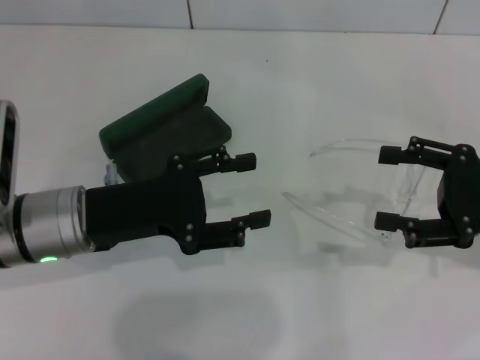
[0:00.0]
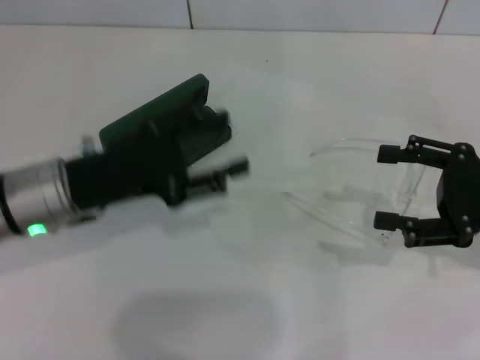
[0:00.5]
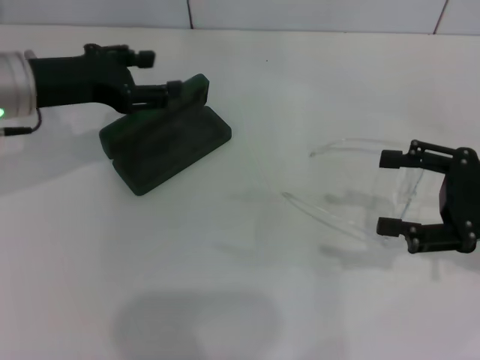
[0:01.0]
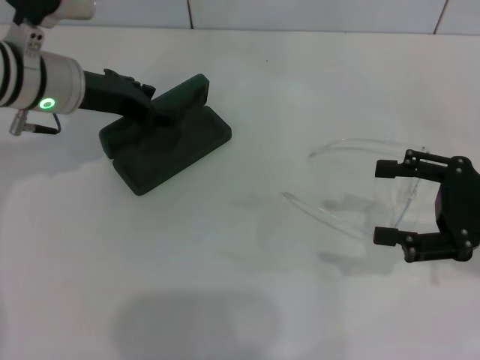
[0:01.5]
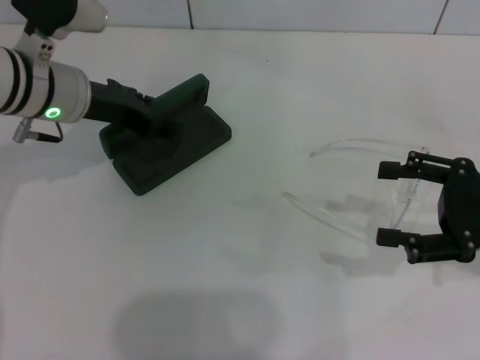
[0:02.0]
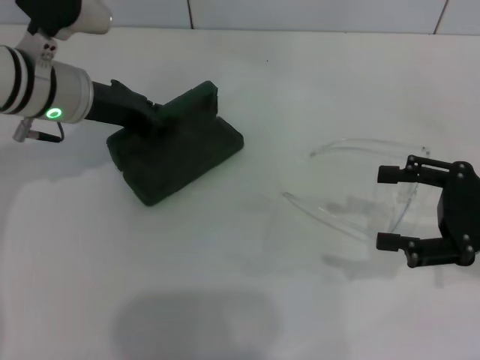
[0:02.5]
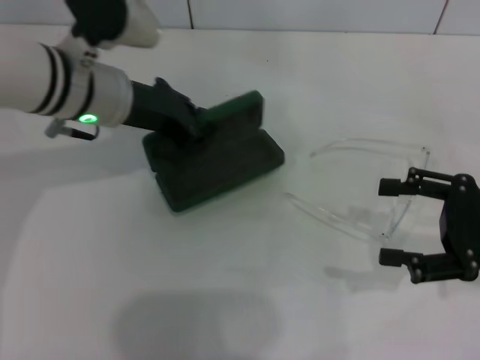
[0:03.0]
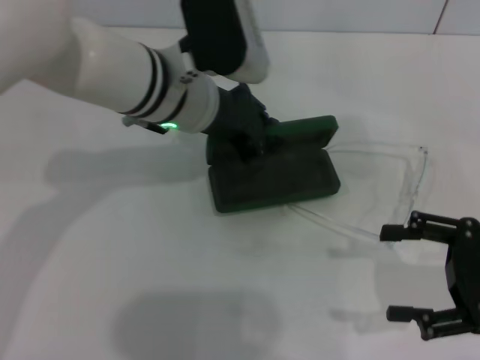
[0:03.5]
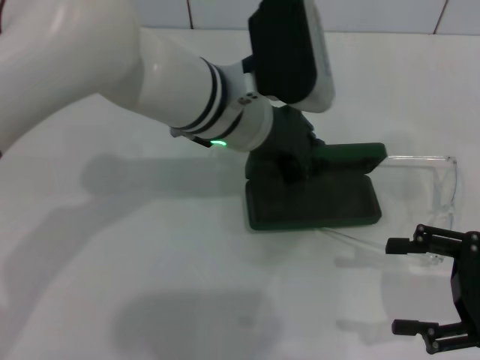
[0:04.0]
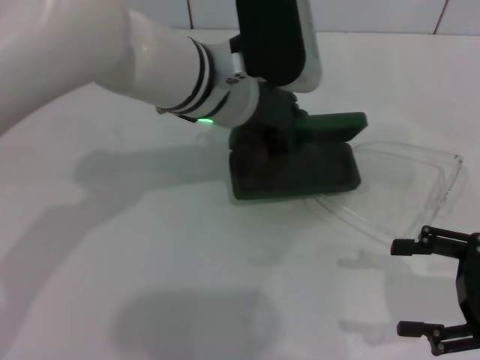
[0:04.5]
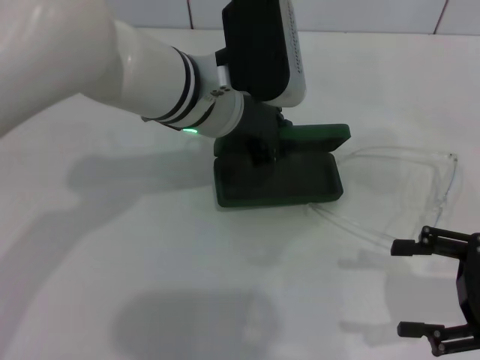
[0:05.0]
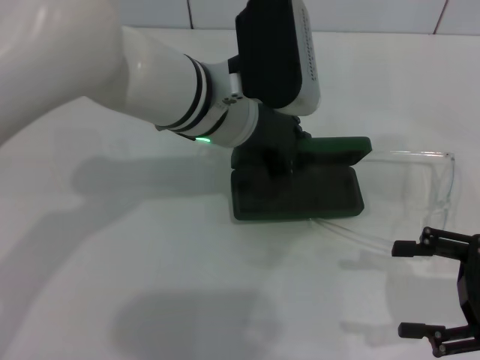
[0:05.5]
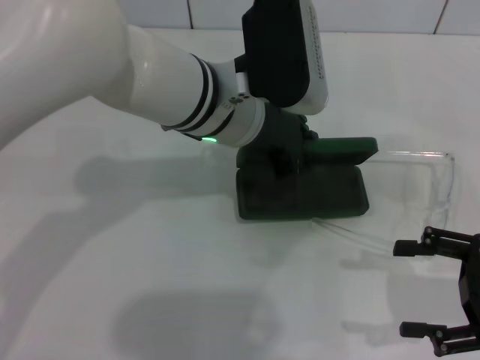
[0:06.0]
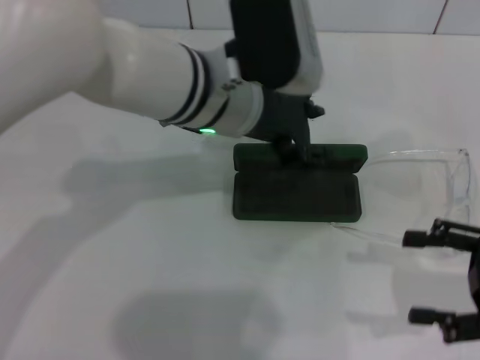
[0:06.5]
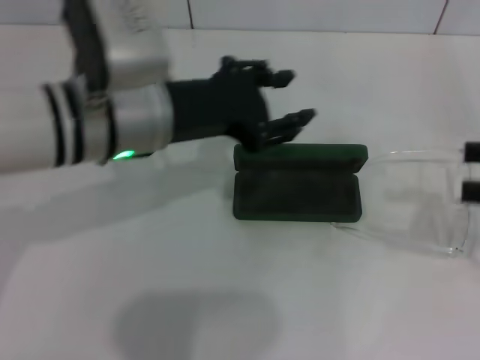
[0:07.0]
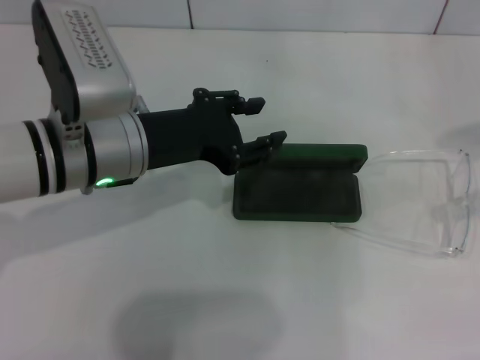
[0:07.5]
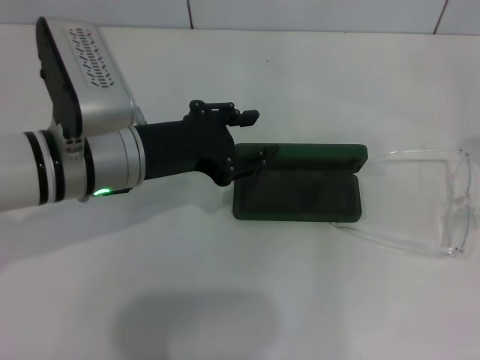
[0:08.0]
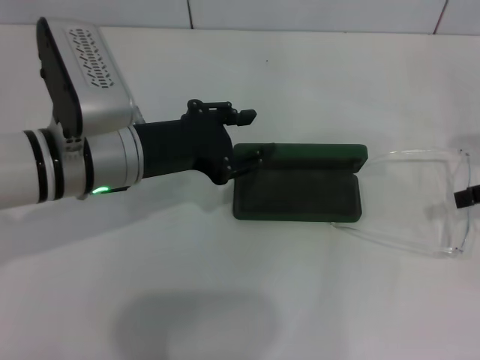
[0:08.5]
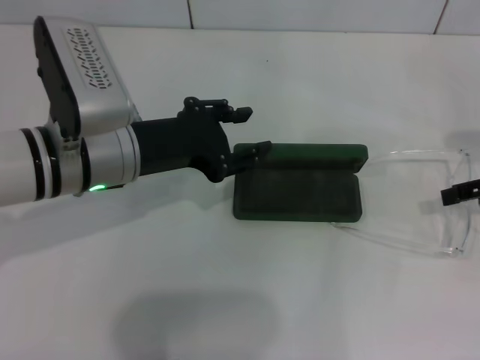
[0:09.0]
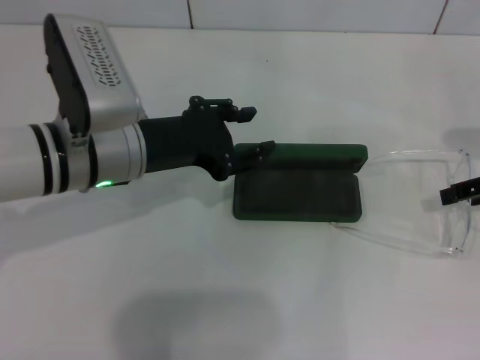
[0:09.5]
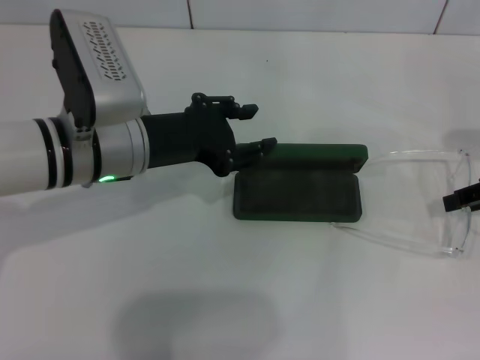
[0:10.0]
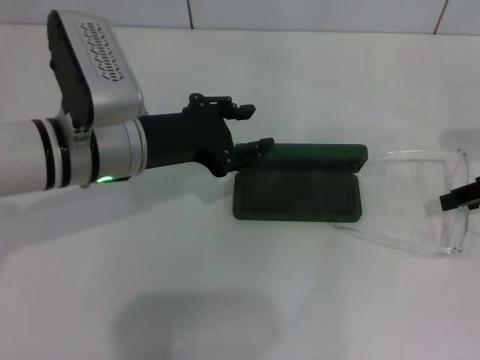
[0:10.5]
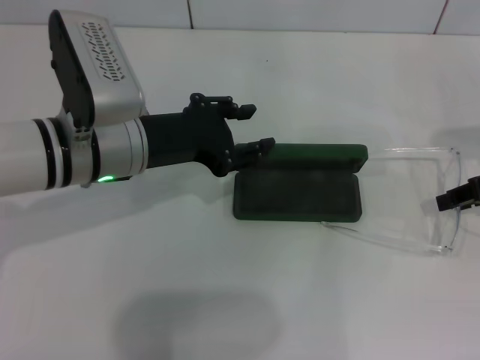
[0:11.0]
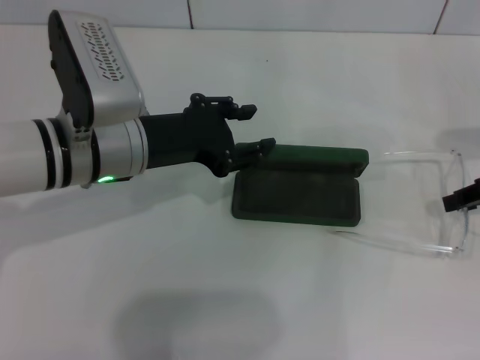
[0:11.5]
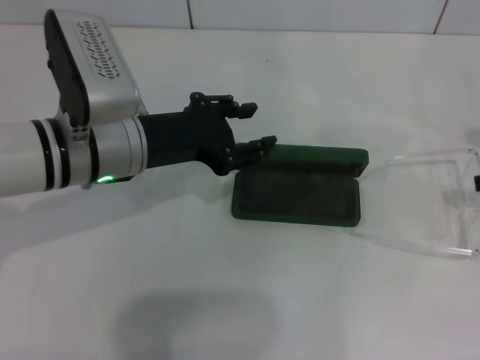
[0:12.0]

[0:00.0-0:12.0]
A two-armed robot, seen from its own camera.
Step, 0:00.0 to 0:02.5: Grab the glasses case with your left hand.
Step, 0:03.0 to 0:06.0: Place the glasses case in the center of the table with your left hand.
0:00.0 to 0:02.0: The left gripper heads forward, covering some 10 cm.
0:02.0 to 0:04.0: The left gripper shifts about 15 cm to the right, and closes its fingers, while the right gripper changes place by about 5 cm.
0:04.0 to 0:06.0: There are only small adjustments of the grippers.
0:06.0 to 0:08.0: The left gripper goes about 10 cm to the left, and opens its fingers. The right gripper travels upward and forward by about 15 cm.
0:08.0 to 0:10.0: The right gripper shifts roughly 5 cm downward, and closes up.
0:10.0 to 0:12.0: The grippers make only small movements.

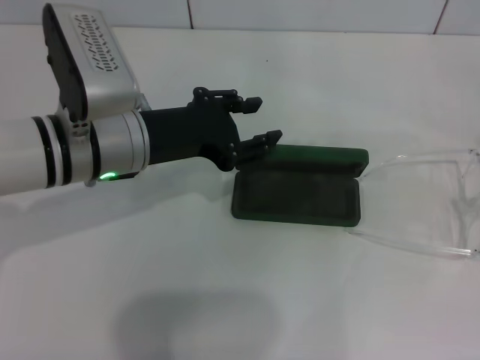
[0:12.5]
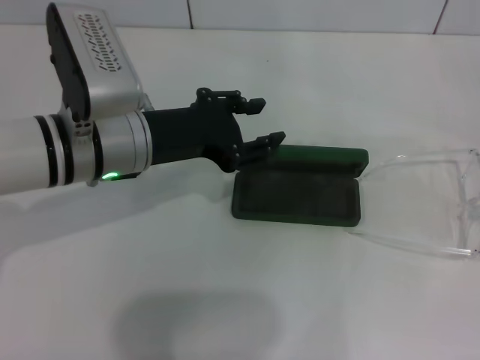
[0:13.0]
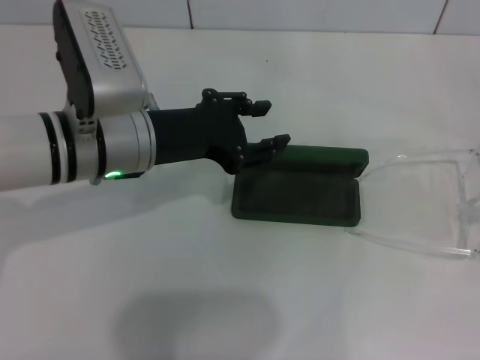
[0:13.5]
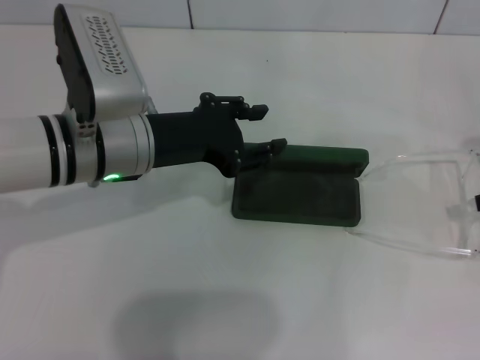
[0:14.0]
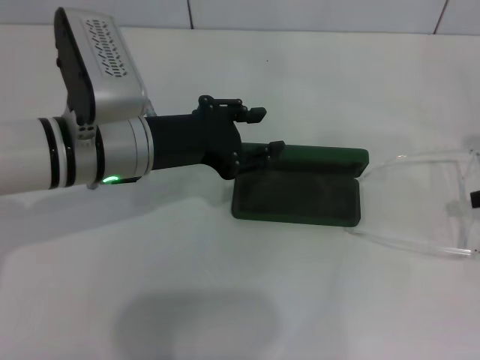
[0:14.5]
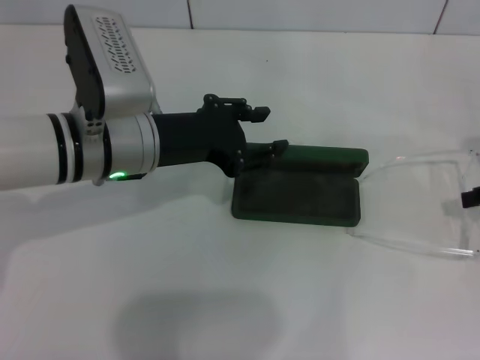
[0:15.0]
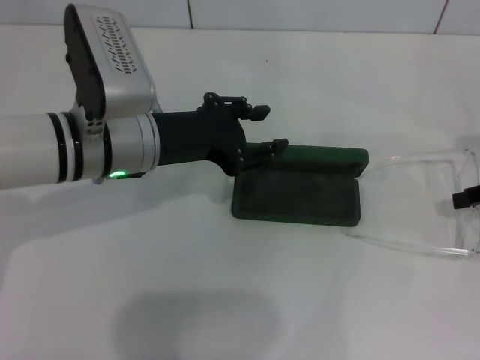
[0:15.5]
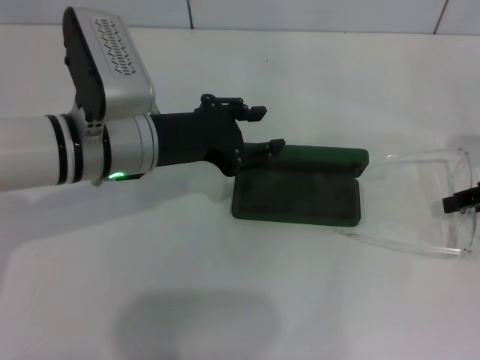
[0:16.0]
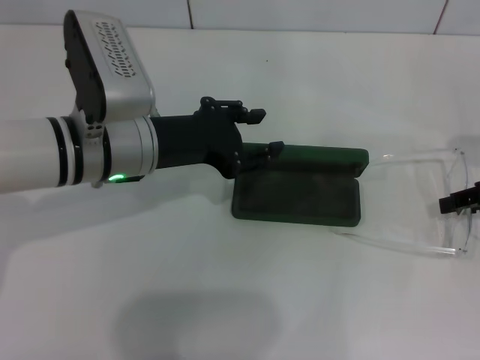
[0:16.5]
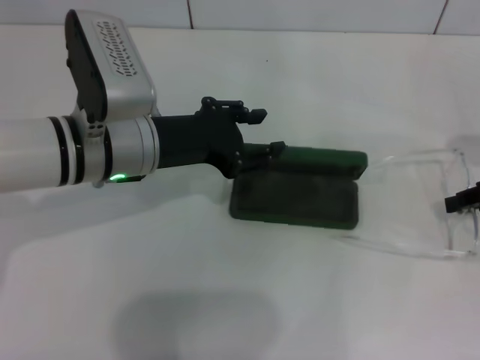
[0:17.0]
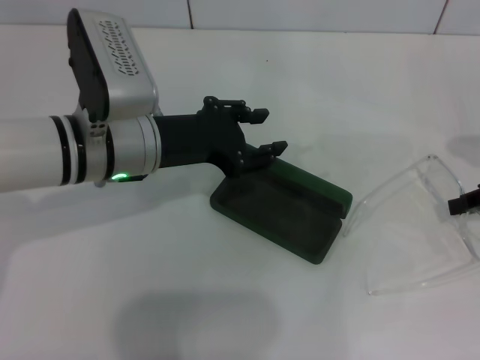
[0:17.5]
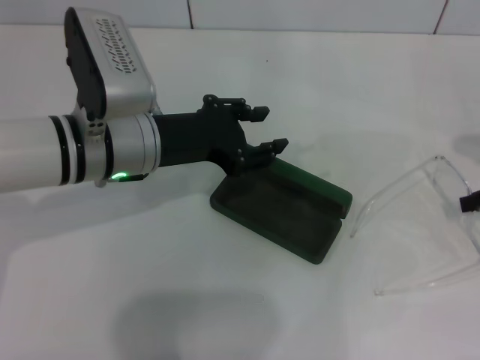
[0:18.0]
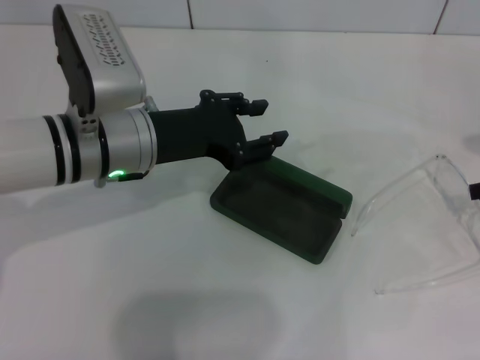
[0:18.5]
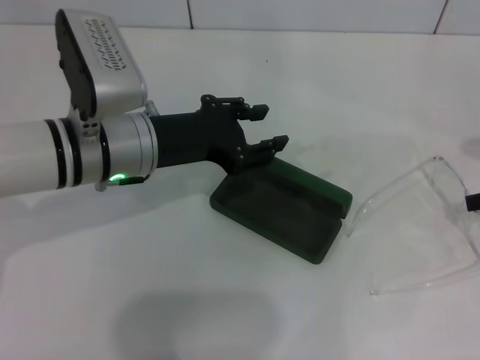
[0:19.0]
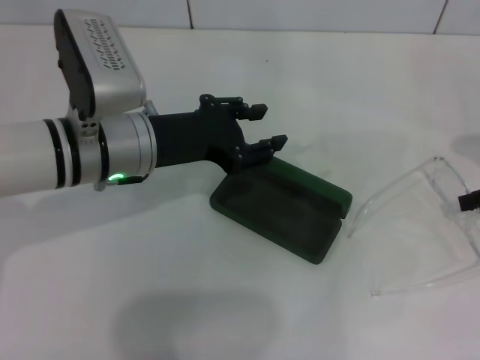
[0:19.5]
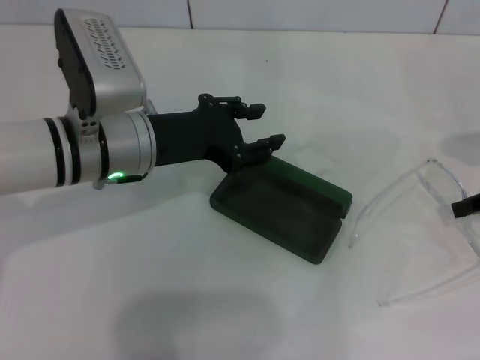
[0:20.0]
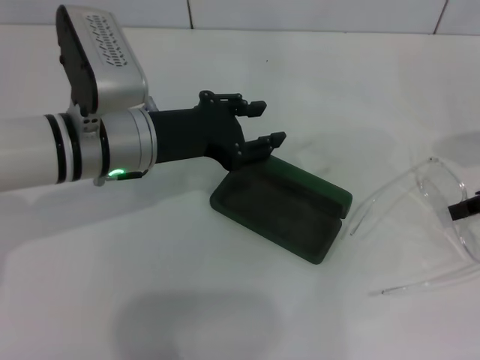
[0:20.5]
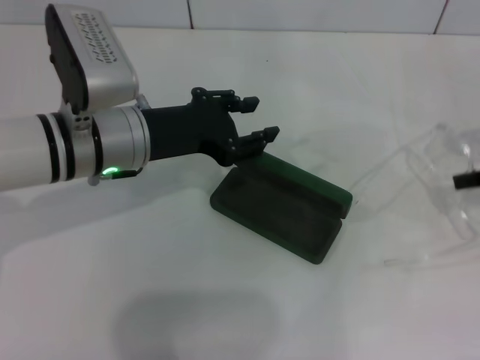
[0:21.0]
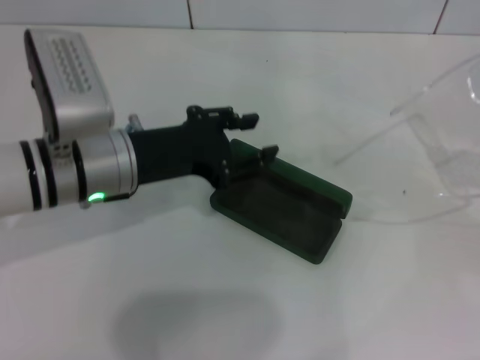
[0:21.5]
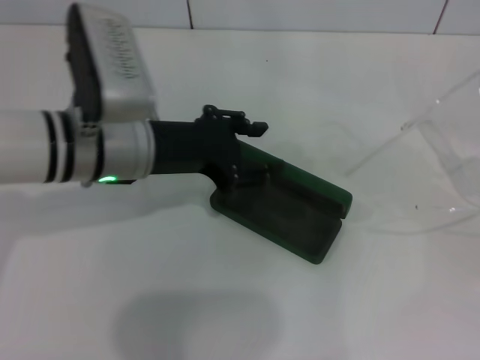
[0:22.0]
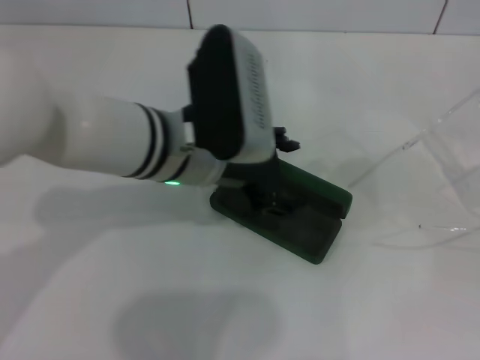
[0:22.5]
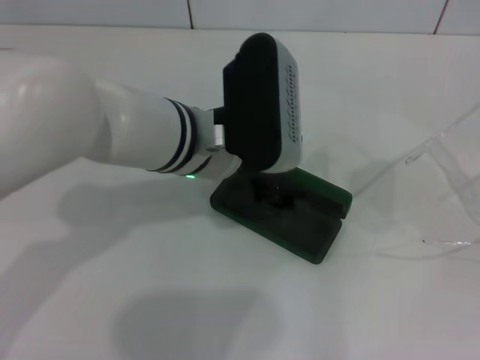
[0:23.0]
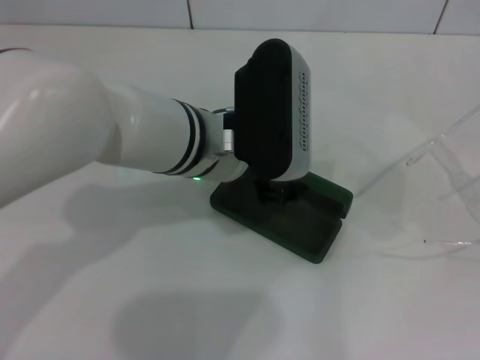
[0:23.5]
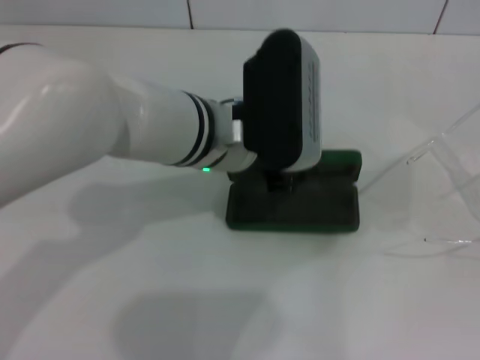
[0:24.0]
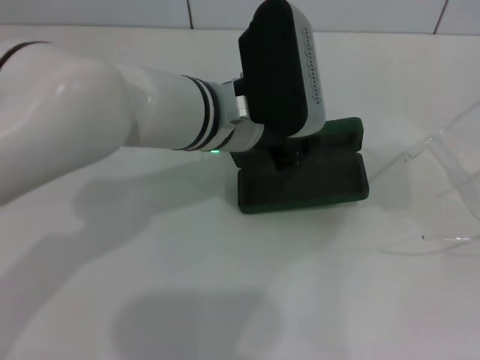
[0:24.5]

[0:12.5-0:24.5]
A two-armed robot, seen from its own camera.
Step, 0:12.5 to 0:20.5: Grab the eyeglass frame with your right hand.
0:12.5 to 0:20.5: There are only small adjustments of the grippers.
0:20.5 to 0:22.5: The two grippers go some 5 cm to the right. The left gripper opens.
0:22.5 to 0:24.5: The left gripper closes up.

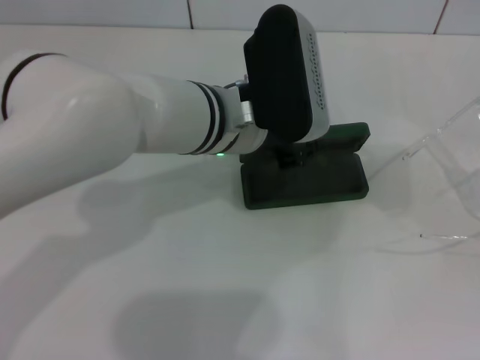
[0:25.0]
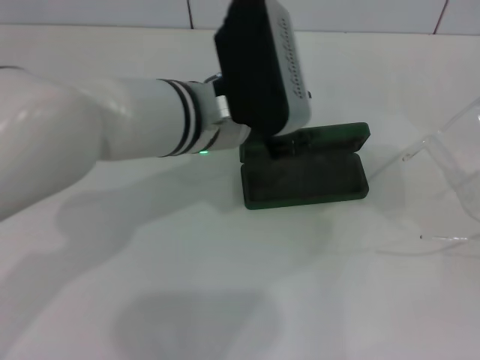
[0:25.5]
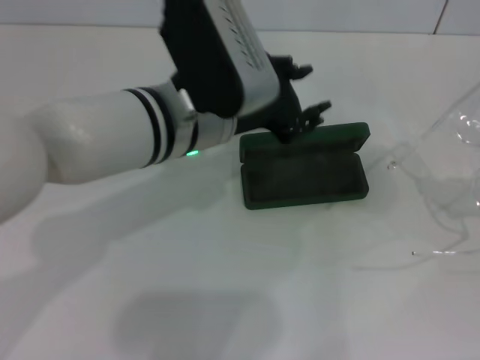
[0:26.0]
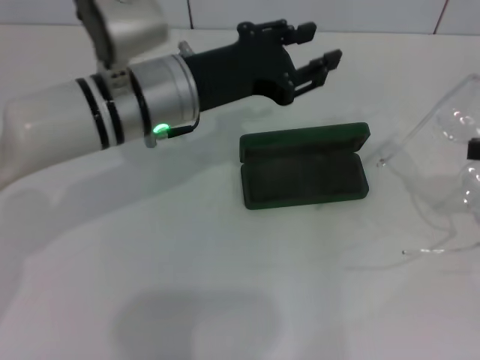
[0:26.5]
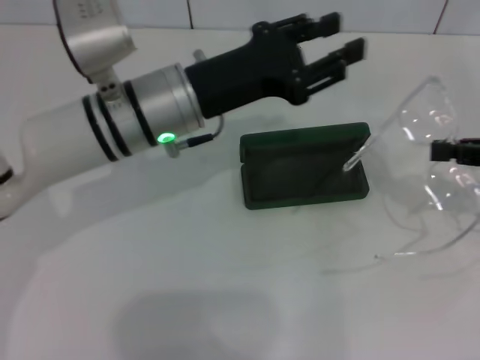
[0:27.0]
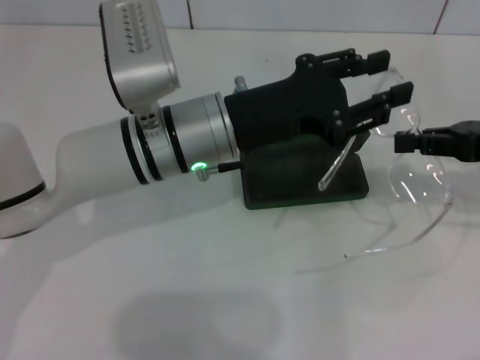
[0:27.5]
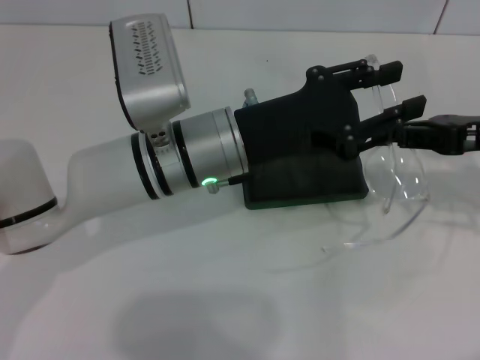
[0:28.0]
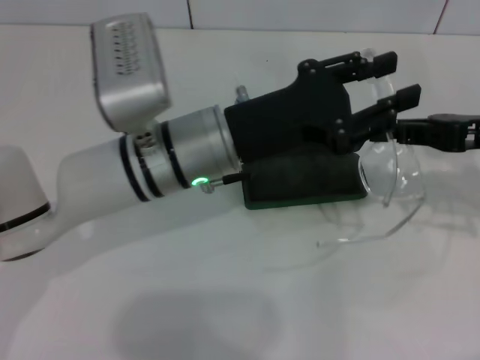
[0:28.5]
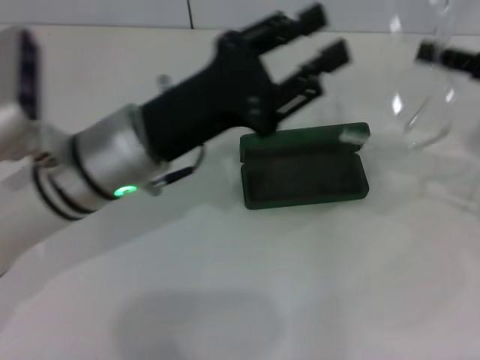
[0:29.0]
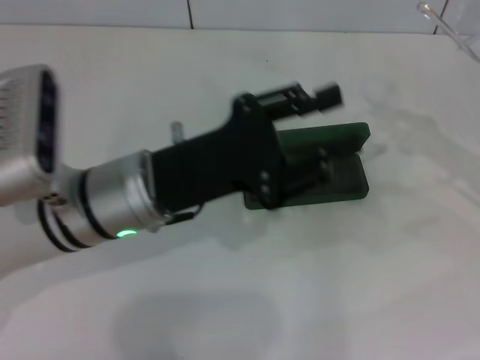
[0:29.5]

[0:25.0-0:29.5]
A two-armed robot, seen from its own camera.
0:25.0 to 0:27.0: The two grippers go approximately 5 cm to the left. The left gripper opens.
0:27.0 to 0:29.5: The left gripper heads backward, covering roughly 5 cm.
